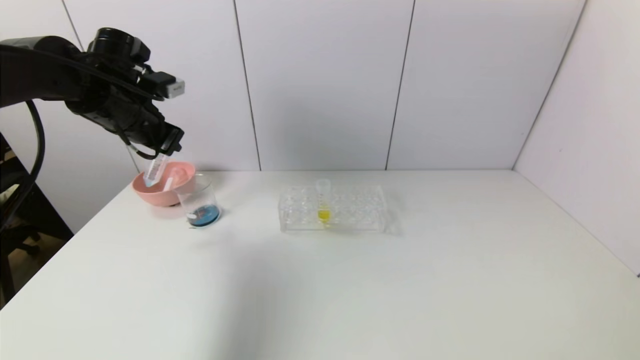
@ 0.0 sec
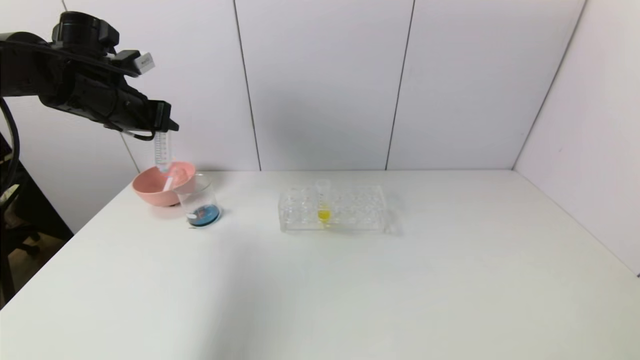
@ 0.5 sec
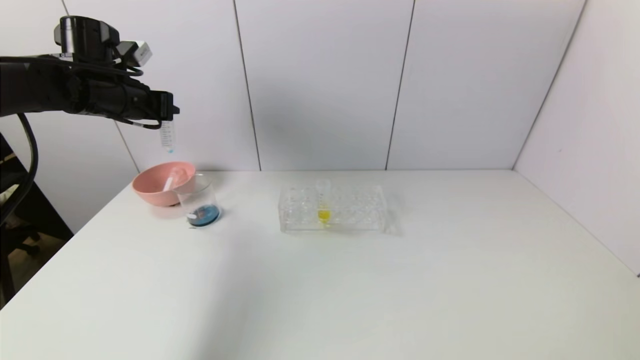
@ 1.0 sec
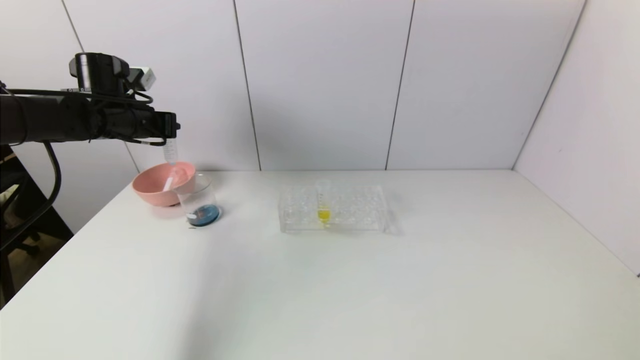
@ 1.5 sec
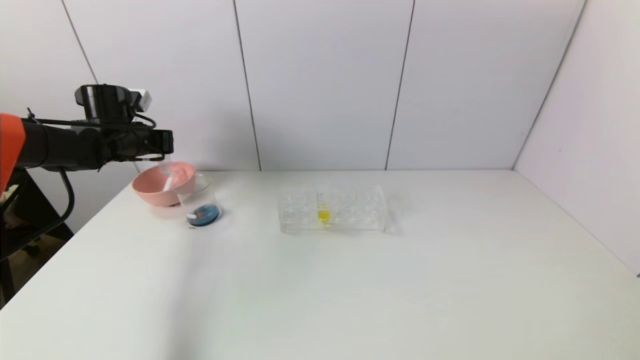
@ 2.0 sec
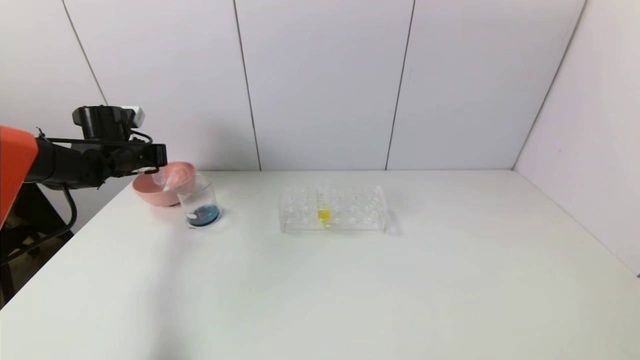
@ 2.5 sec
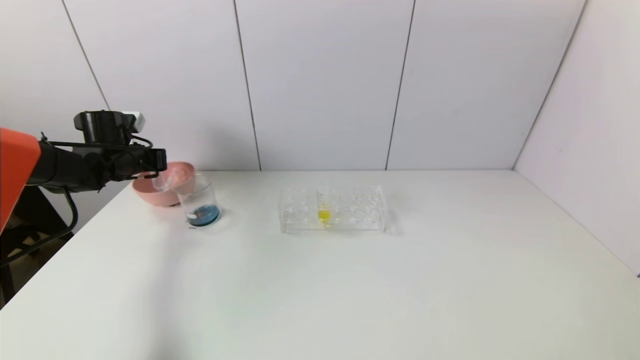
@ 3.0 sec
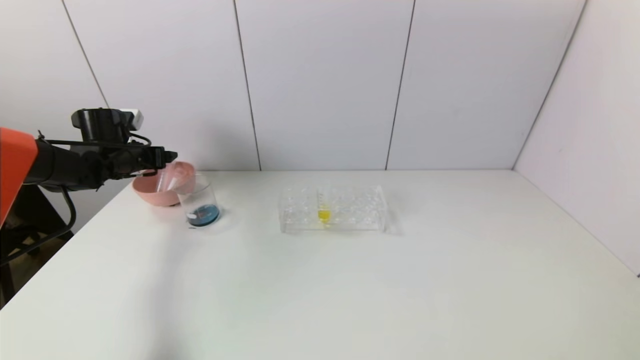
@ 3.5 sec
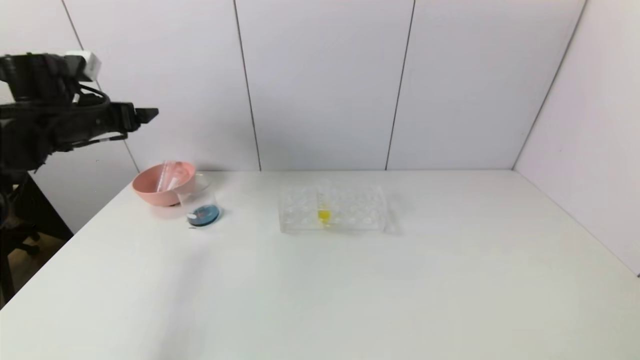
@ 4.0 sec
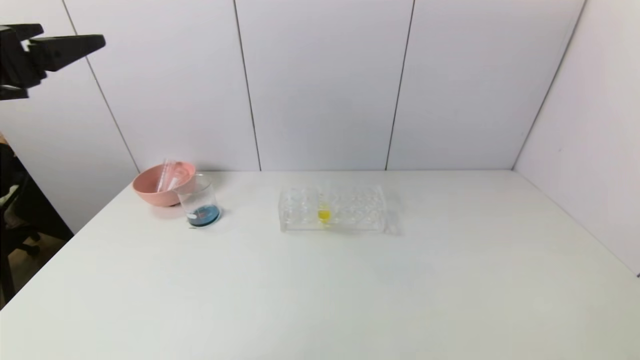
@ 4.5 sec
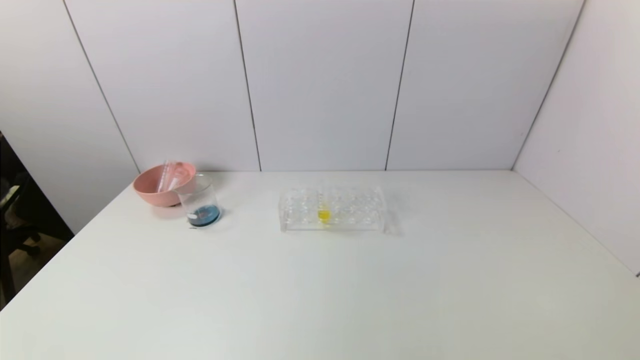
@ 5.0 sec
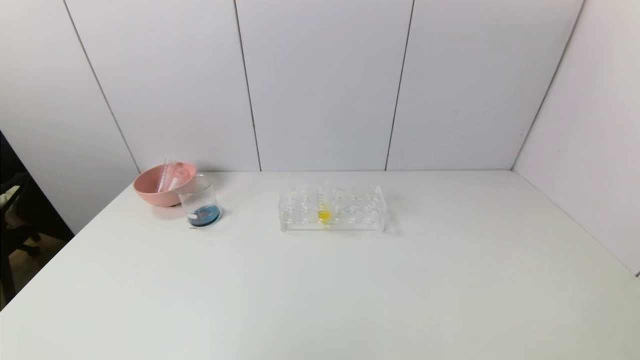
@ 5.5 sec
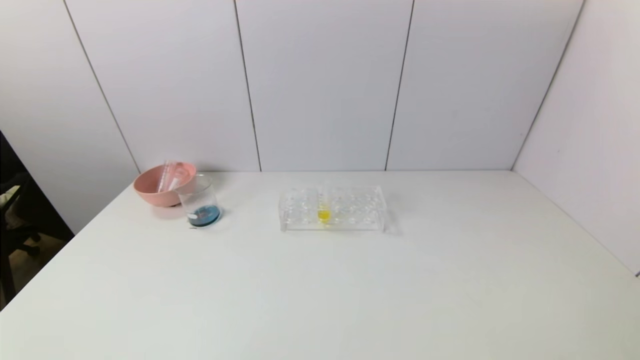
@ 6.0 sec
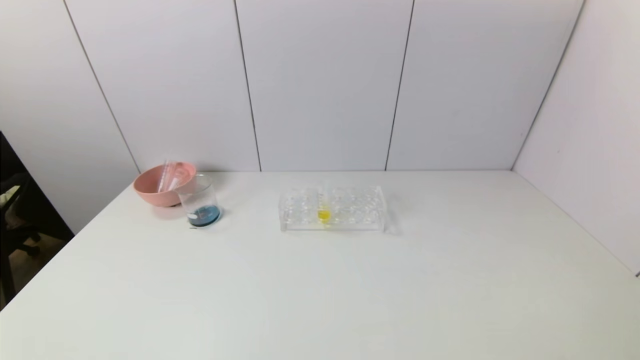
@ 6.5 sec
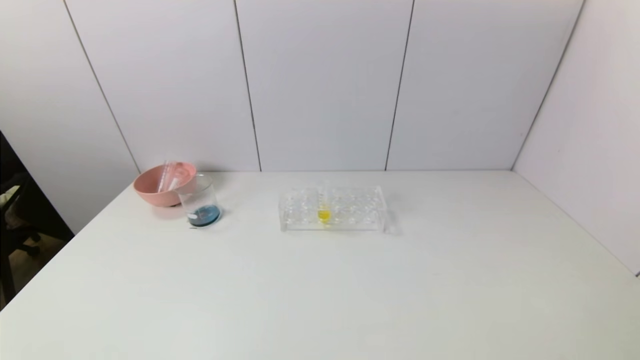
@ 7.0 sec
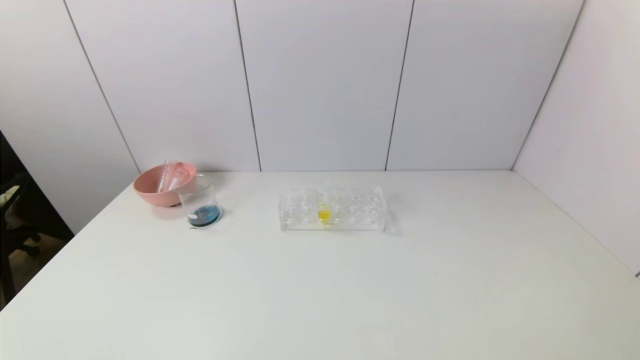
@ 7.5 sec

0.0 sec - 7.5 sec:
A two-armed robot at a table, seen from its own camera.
Task of the whole recording: pick up the test tube with red pigment and the test tube with blue pigment by grippers and pour them into the container.
Step, 0.0 sec - 4.0 sec: Place the test tube into the bowl with the left gripper.
0.0 sec - 2.0 sec: The left gripper travels downward, to the left and forward by some 15 cm.
2.0 sec - 4.0 sec: The left gripper heads backward and upward, covering roughly 10 cm, and opens.
4.0 sec - 5.5 sec: The left gripper shifts roughly 40 cm backward.
